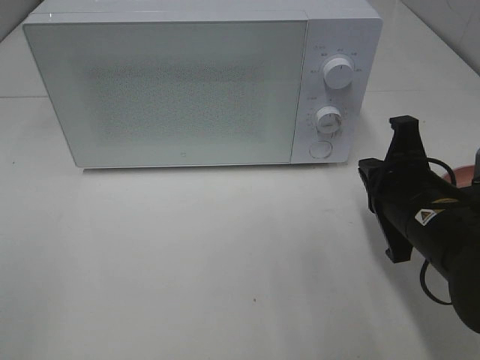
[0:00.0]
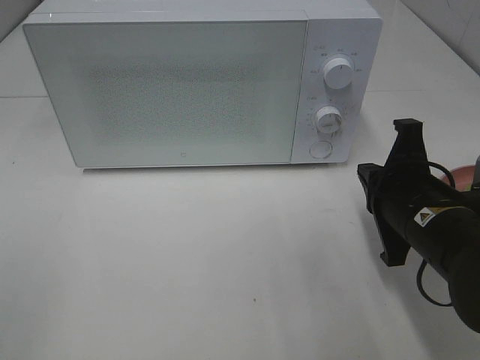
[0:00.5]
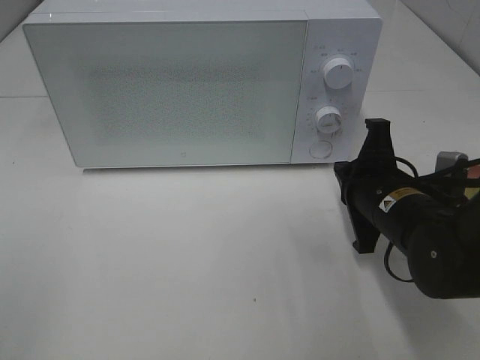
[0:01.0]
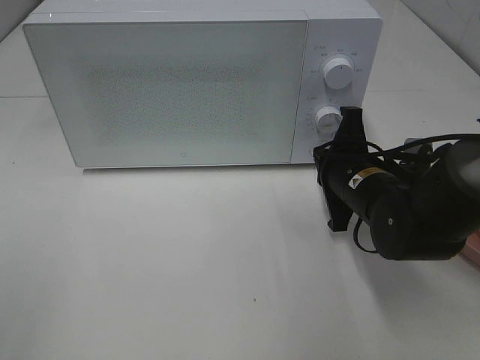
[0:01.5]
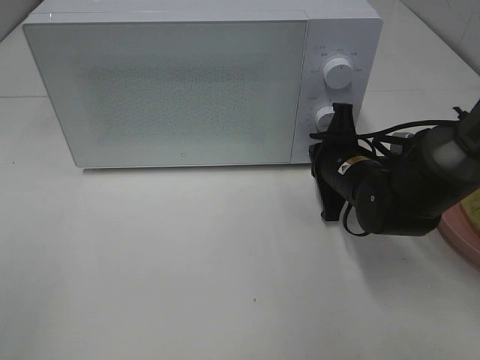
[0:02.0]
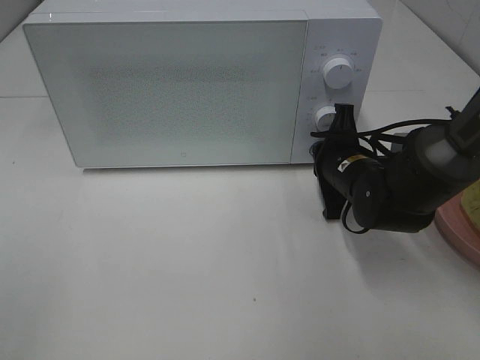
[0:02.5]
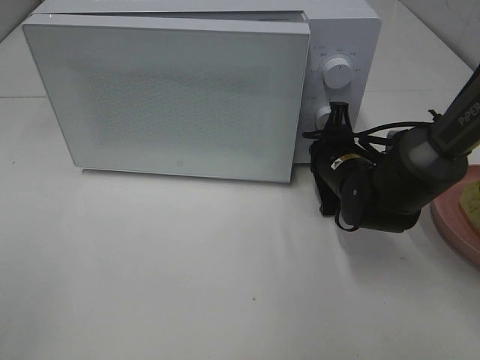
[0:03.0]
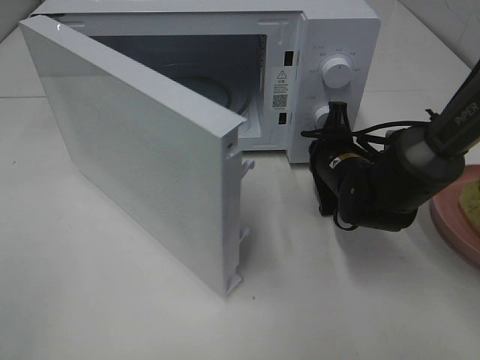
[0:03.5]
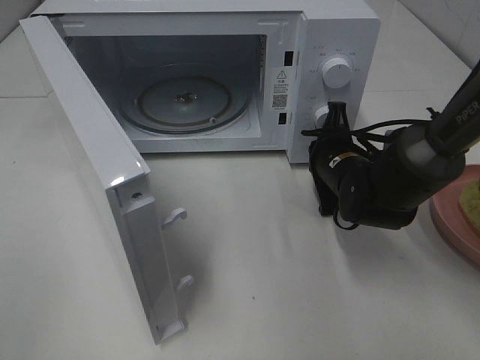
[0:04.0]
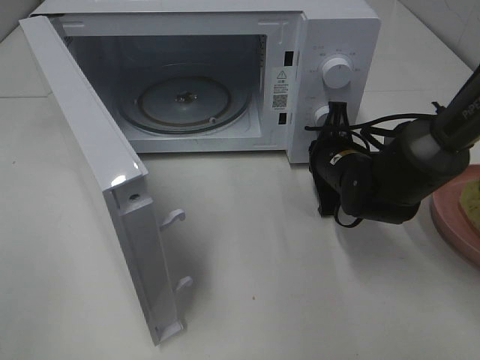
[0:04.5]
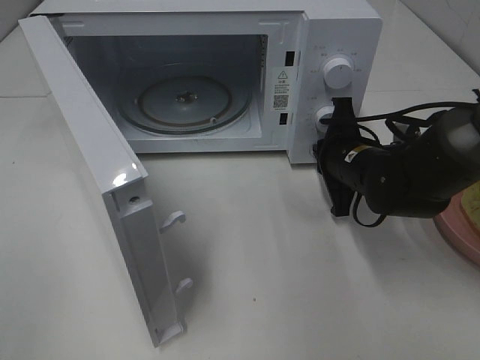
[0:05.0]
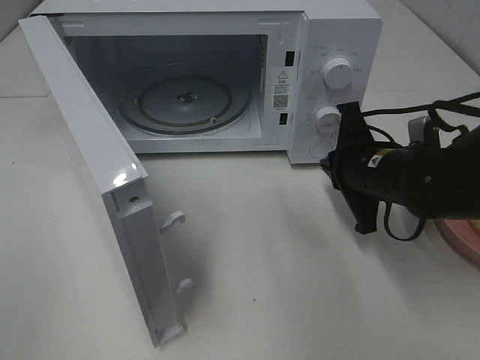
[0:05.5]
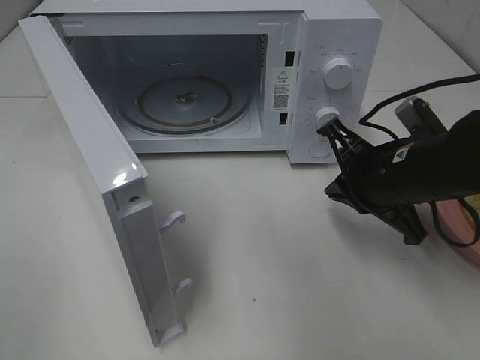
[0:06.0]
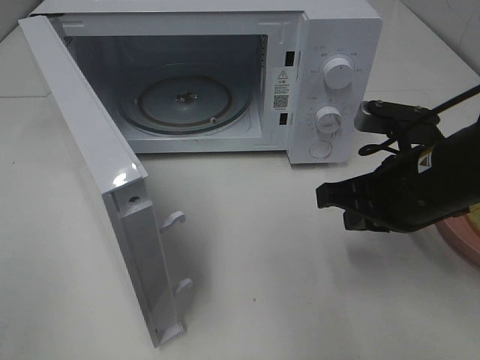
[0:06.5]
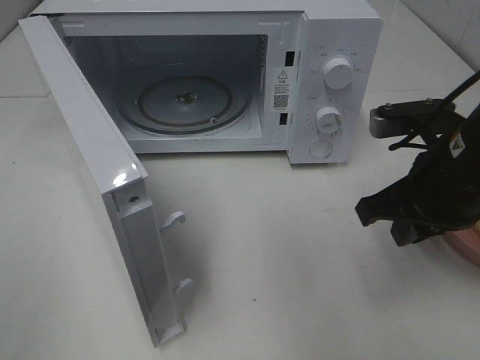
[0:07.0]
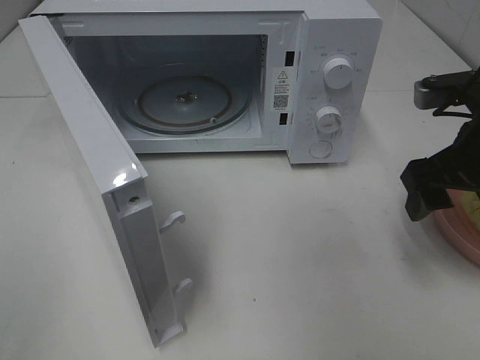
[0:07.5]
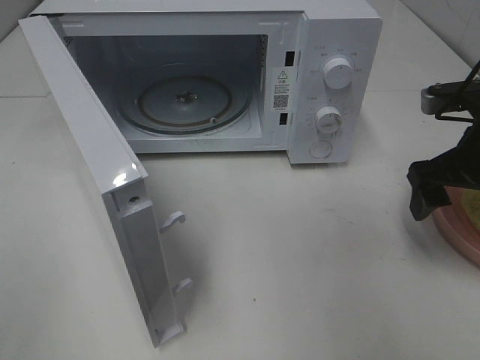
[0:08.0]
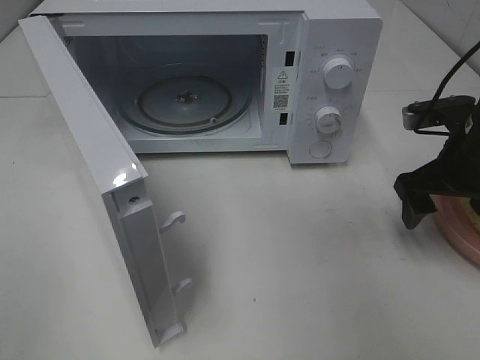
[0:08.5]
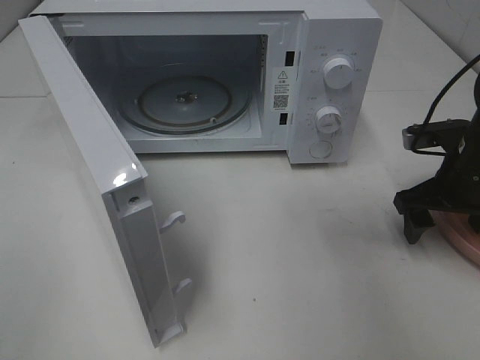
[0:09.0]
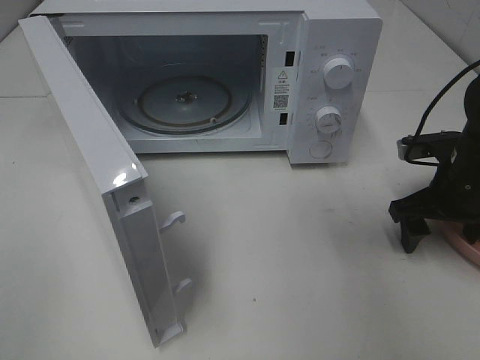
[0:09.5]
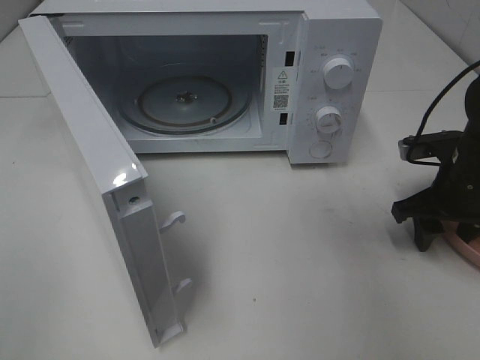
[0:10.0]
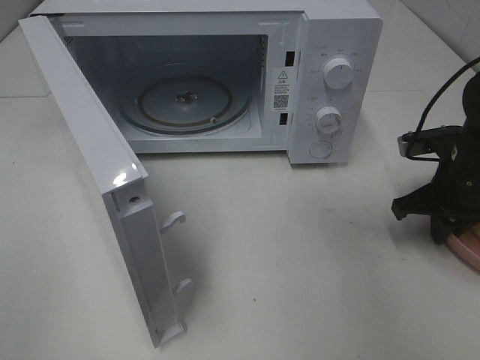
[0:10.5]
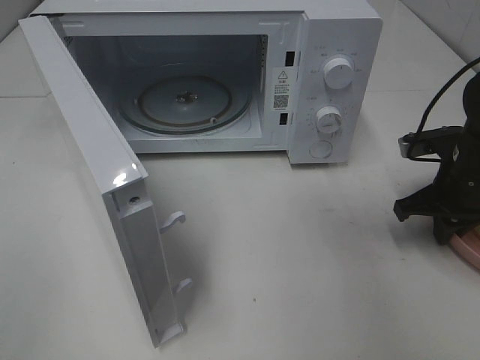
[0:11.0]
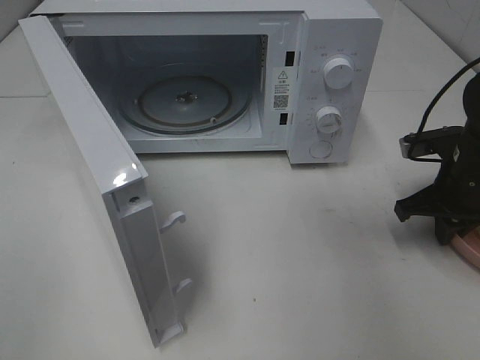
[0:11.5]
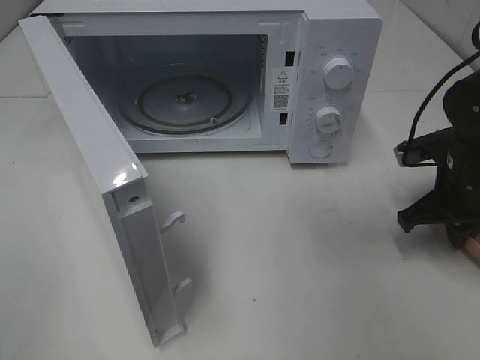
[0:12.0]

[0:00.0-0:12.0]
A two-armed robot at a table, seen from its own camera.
Task of the whole recording: Heat Sandwich.
Step, 0:00.0 to 0:05.0: Right hand: press the switch.
Step, 0:05.5 to 0:10.5: Right hand: grab the plate with the sandwich.
0:00.0 to 0:02.0: The right gripper heads forward, covering some 10 cm.
0:04.0 to 0:06.0: The right gripper goes about 10 cm backward and upward.
0:06.0 to 0:08.0: The right gripper moves to the right, about 10 cm, and opens its fingers.
0:08.0 to 0:10.0: The right gripper shifts roughly 10 cm downward, and closes up.
0:10.0 to 0:12.0: The right gripper closes up.

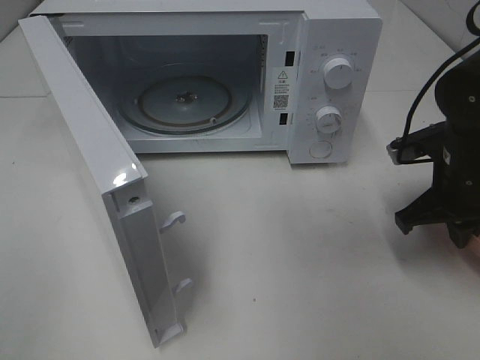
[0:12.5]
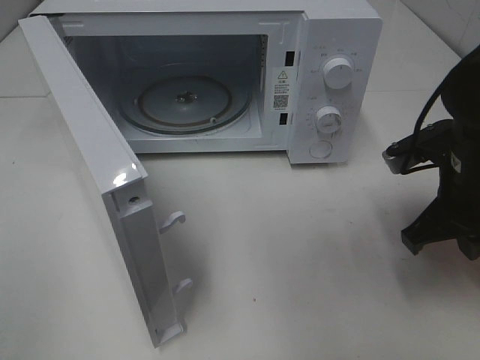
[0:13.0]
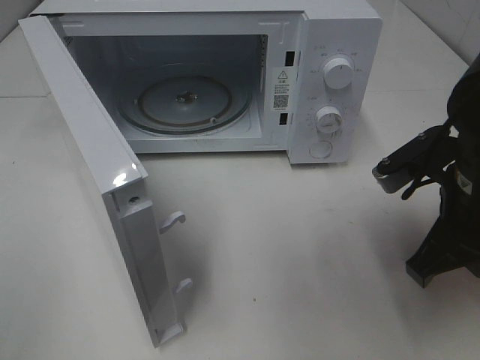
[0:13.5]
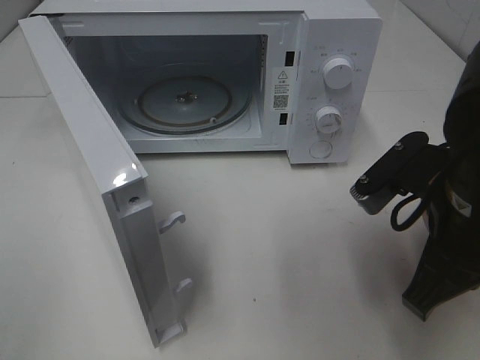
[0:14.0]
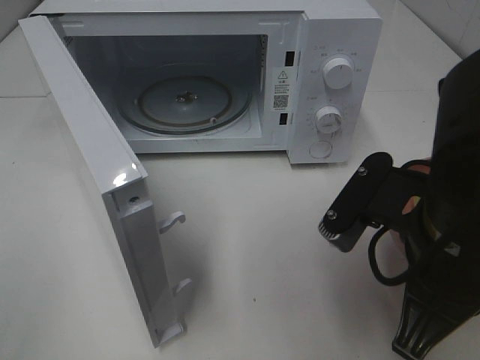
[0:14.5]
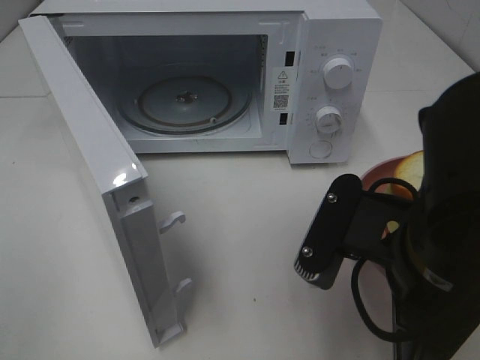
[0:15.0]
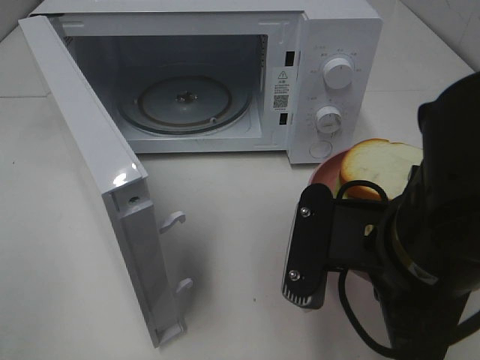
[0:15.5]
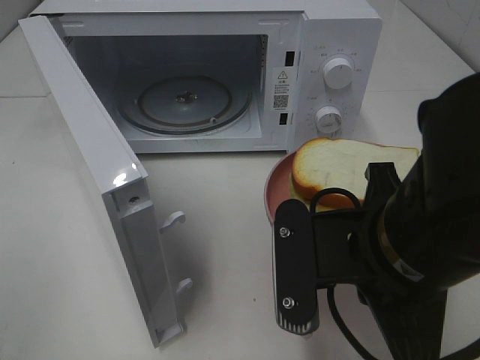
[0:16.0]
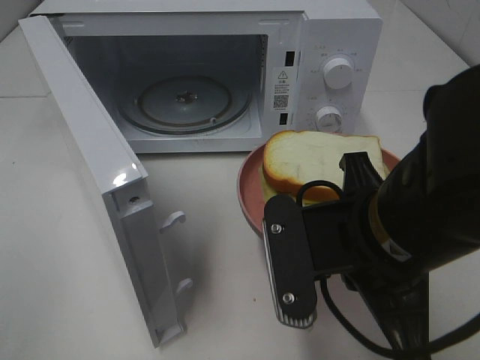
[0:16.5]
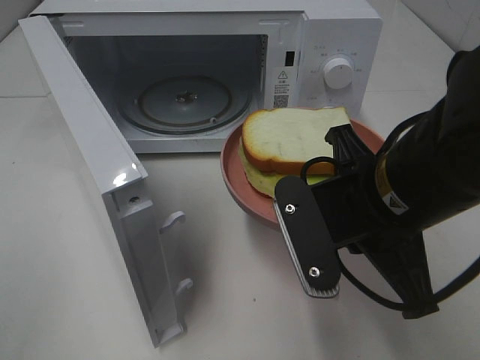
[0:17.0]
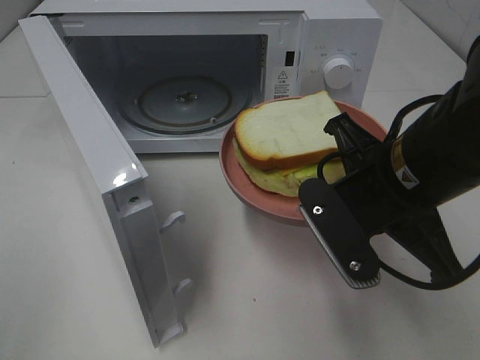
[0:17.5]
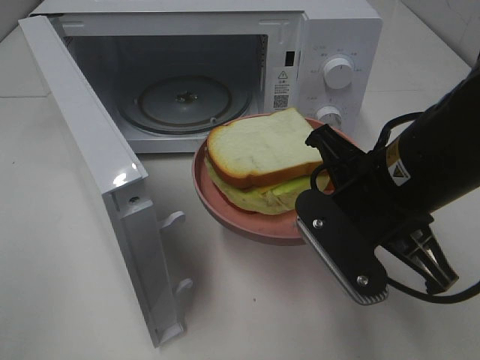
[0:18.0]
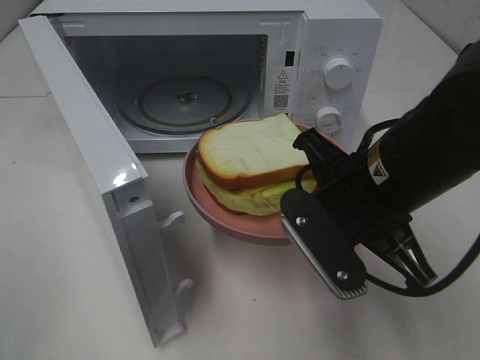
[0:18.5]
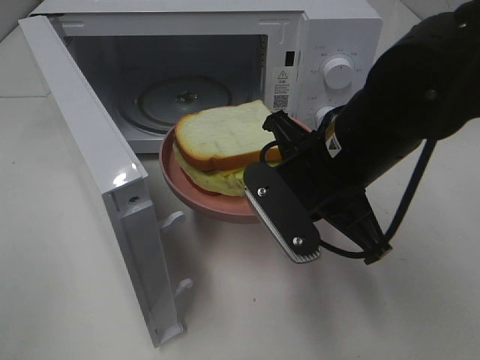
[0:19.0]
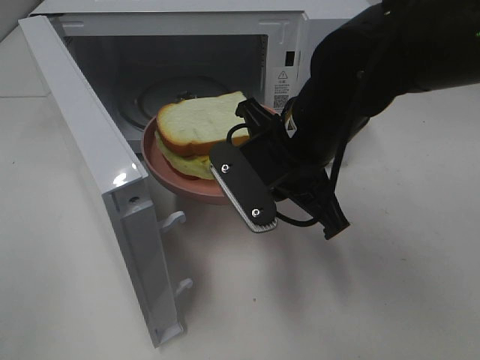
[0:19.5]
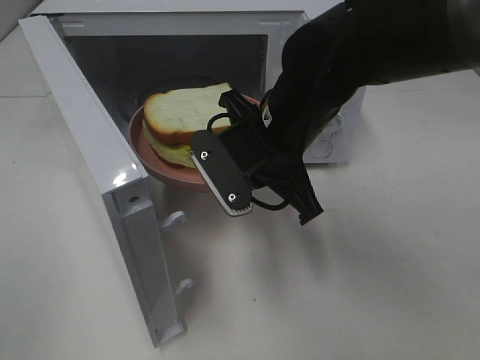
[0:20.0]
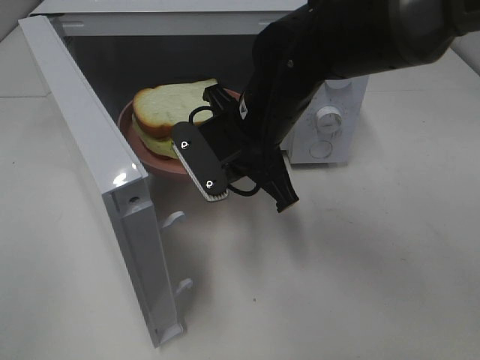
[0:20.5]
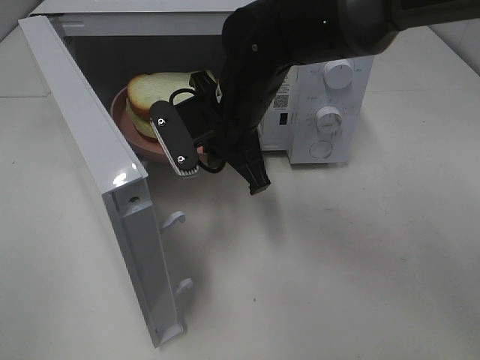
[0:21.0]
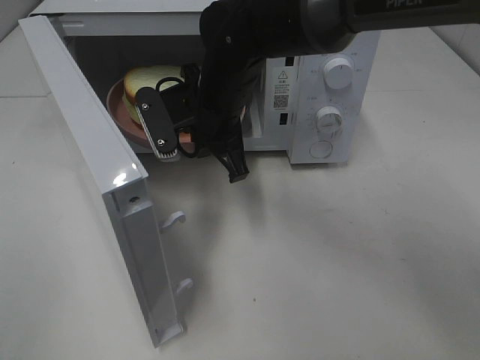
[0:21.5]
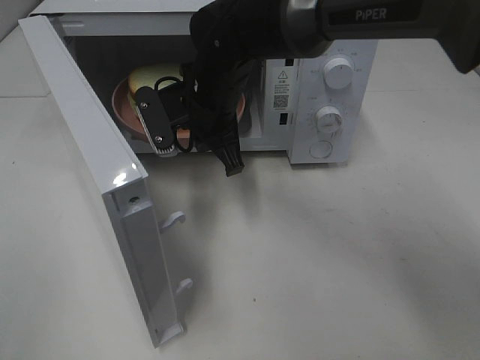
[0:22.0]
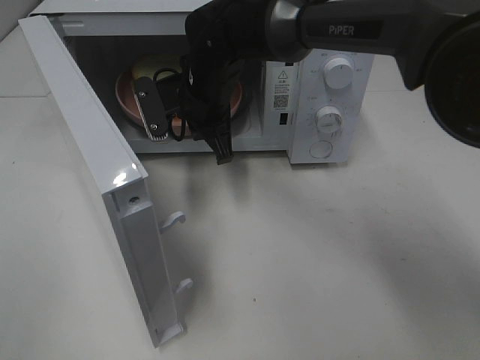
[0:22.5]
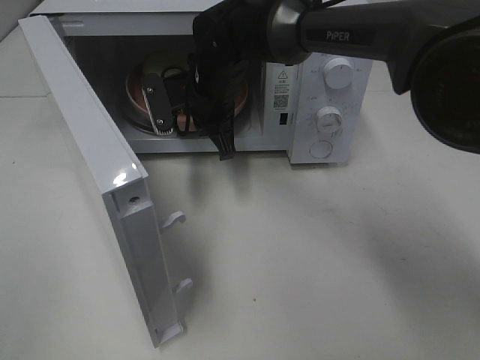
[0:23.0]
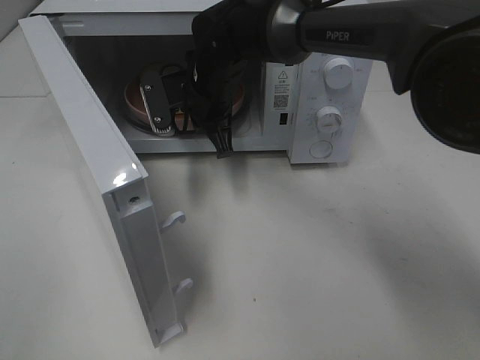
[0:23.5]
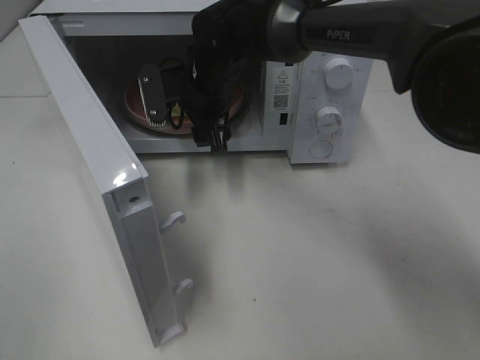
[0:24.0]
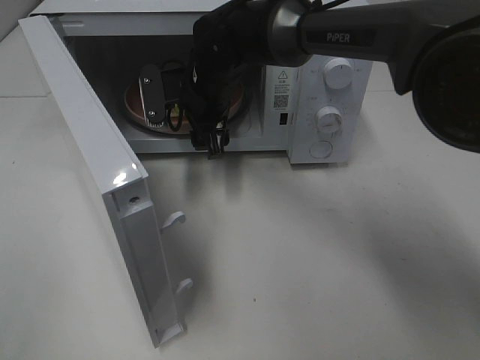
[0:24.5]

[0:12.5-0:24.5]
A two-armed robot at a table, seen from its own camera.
Task of the whole recording: Heat Sandwich.
0:12.5 to 0:14.5: The right gripper heads backward, to the left and upward, covering approximately 20 cm.
0:16.5 to 0:18.5: The right gripper moves forward, approximately 5 cm.
0:18.5 to 0:20.5: The right gripper is displaced forward and to the left by roughly 15 cm.
0:20.5 to 0:22.5: The right gripper moves forward and to the left, roughly 10 cm.
0:22.5 to 0:24.5: The right gripper opens.

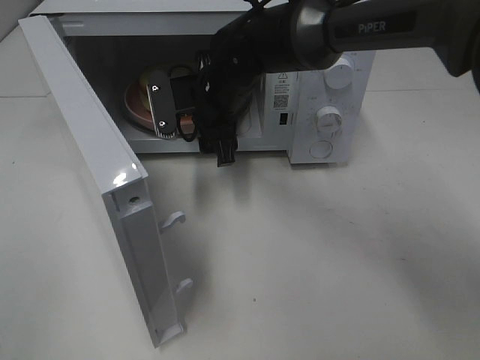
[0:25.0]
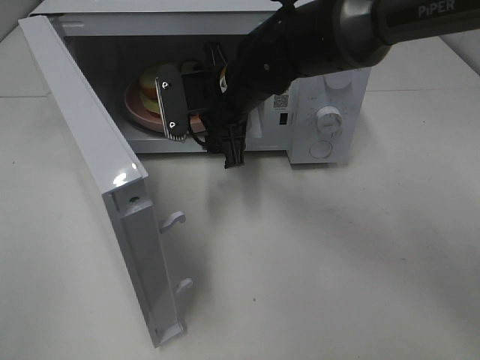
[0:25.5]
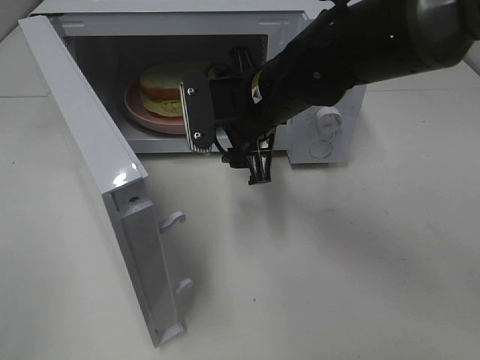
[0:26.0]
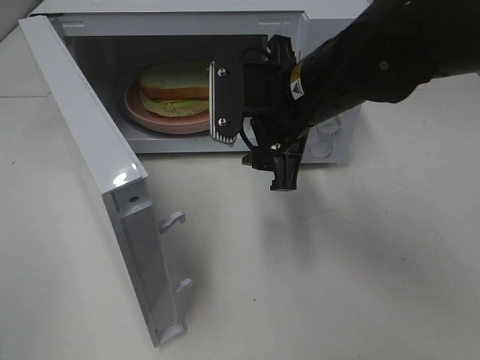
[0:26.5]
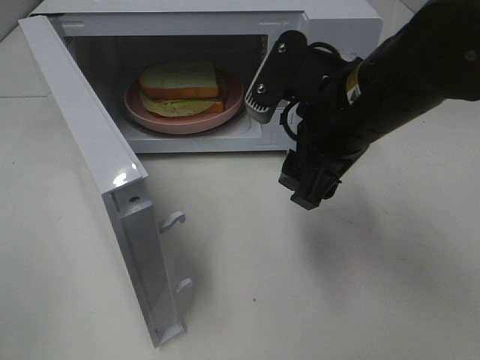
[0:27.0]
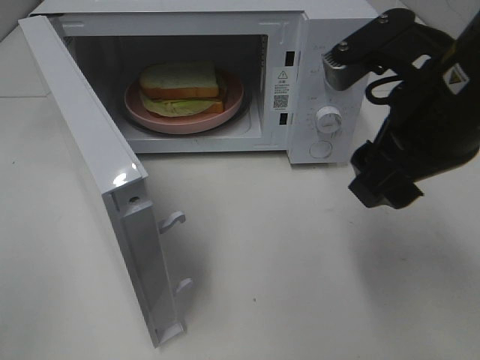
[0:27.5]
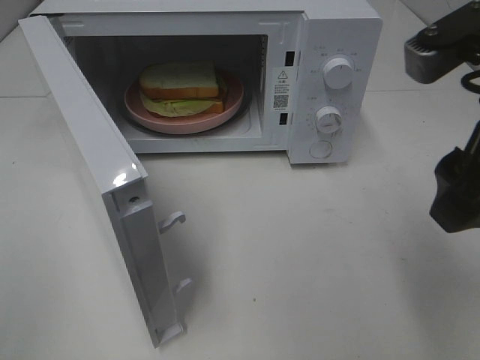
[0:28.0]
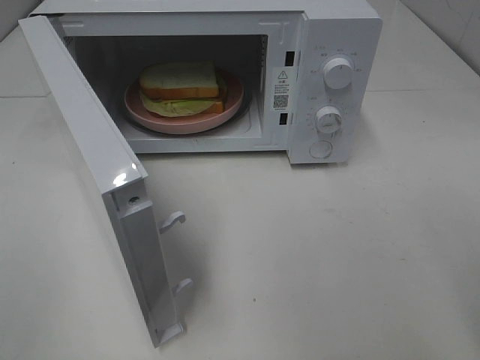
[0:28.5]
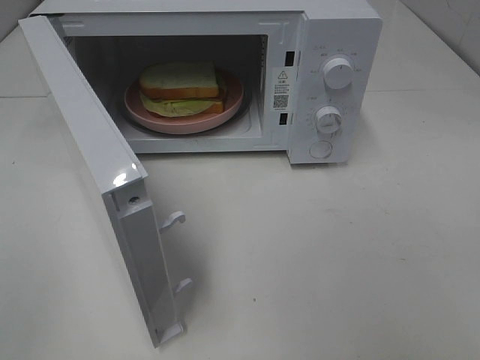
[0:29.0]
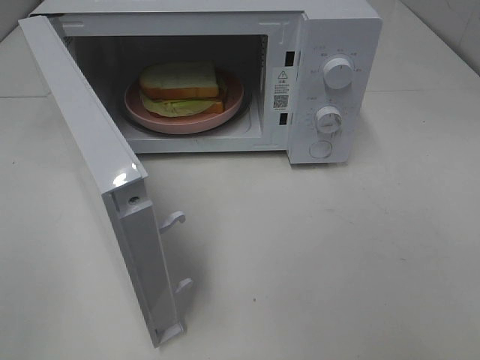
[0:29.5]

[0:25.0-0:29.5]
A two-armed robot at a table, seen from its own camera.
Task of the whole recording: Heat Sandwich.
0:25.0 to 0:27.0: The right gripper shifts some 20 cm backward, to the right and upward.
0:27.0 to 0:29.5: The right gripper heads backward and to the right, covering about 30 cm.
